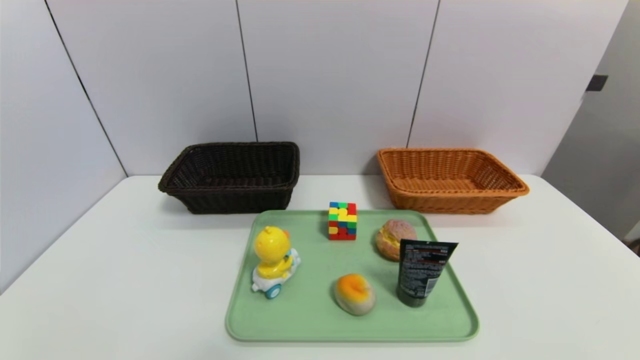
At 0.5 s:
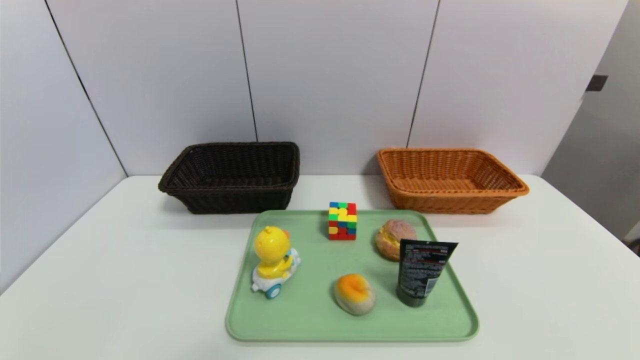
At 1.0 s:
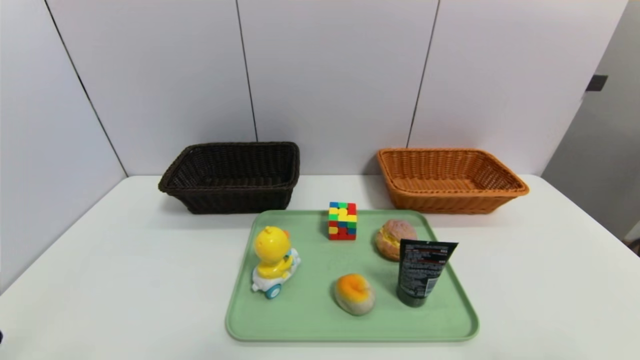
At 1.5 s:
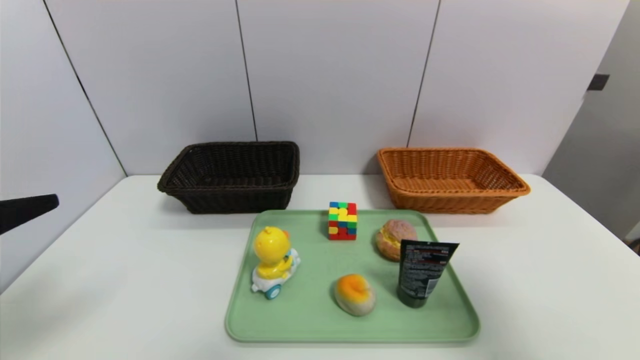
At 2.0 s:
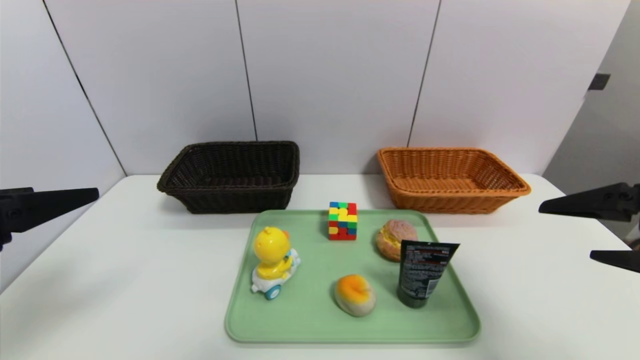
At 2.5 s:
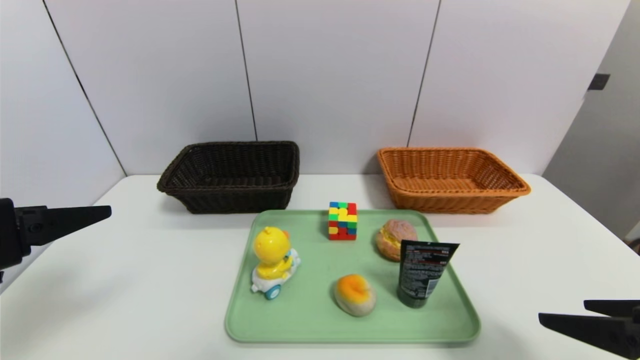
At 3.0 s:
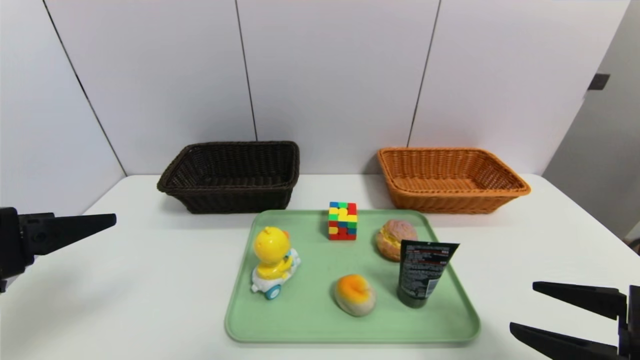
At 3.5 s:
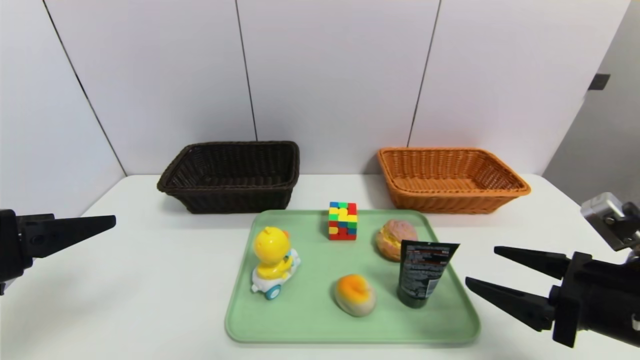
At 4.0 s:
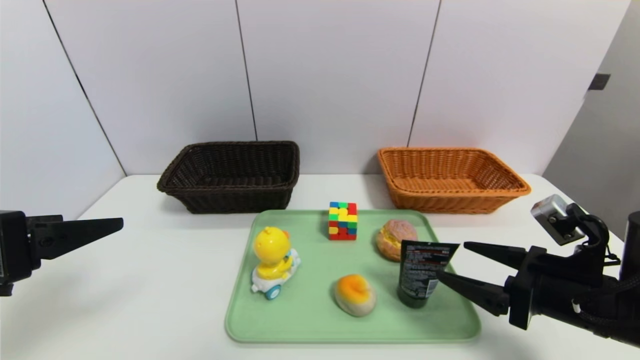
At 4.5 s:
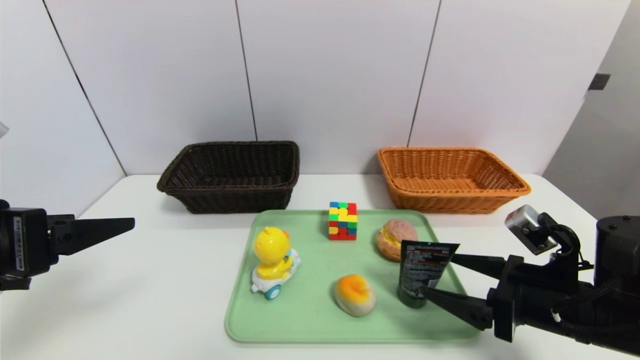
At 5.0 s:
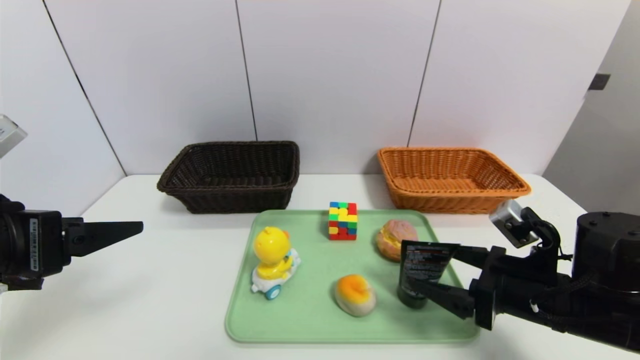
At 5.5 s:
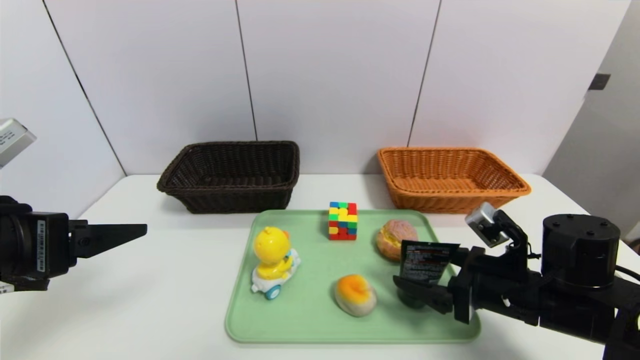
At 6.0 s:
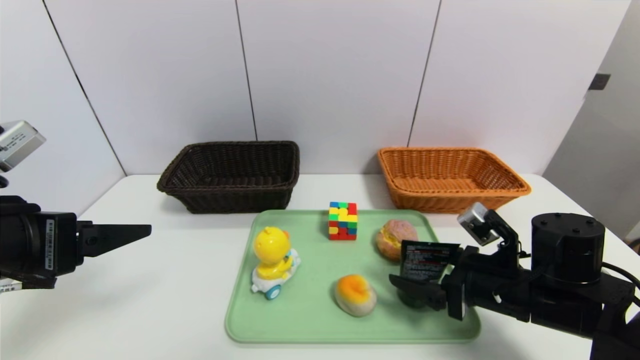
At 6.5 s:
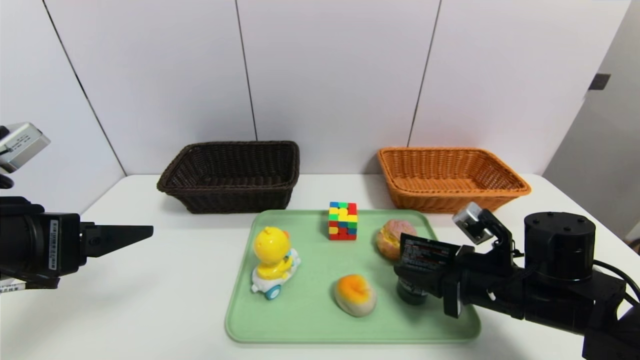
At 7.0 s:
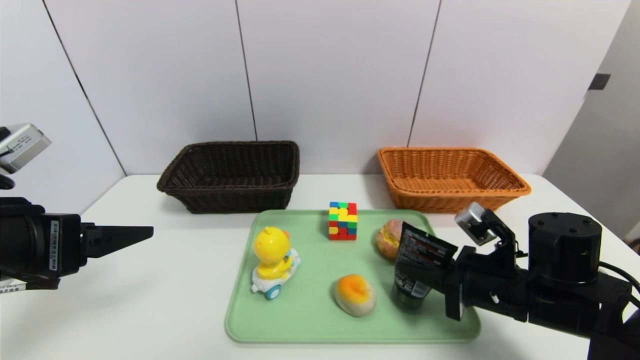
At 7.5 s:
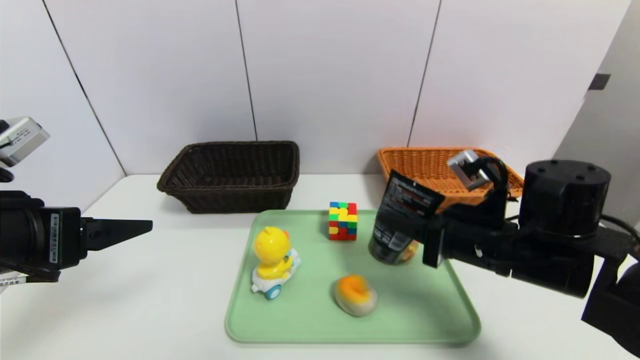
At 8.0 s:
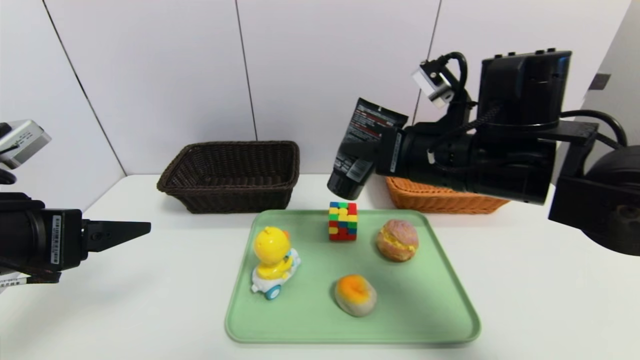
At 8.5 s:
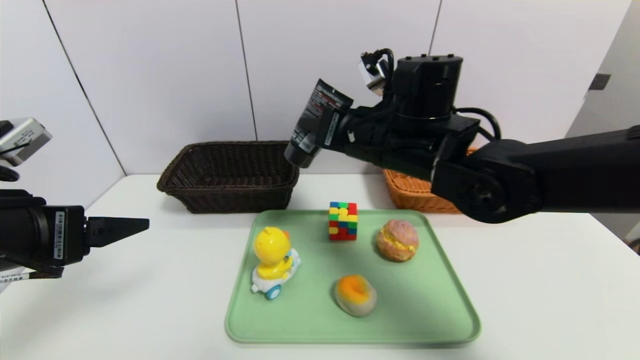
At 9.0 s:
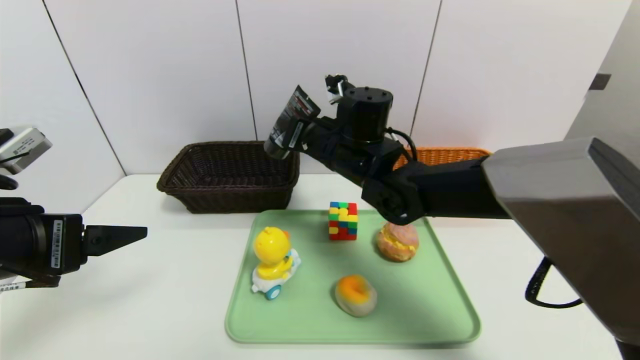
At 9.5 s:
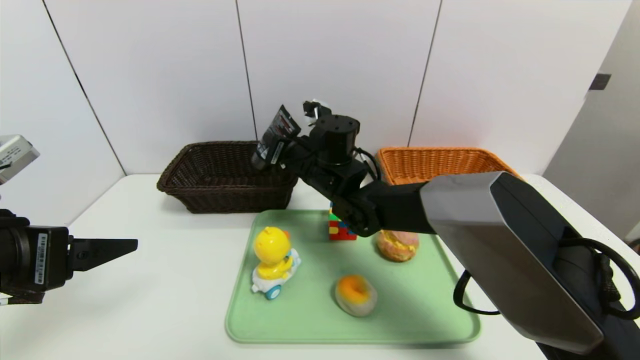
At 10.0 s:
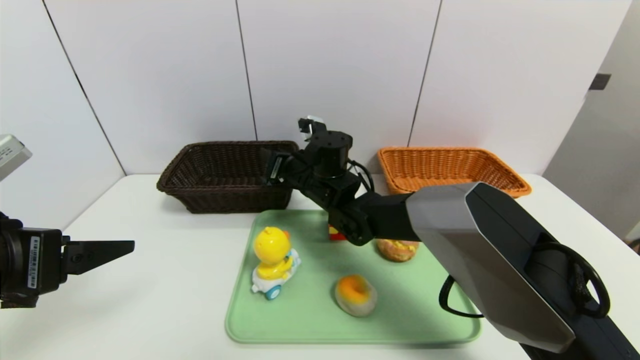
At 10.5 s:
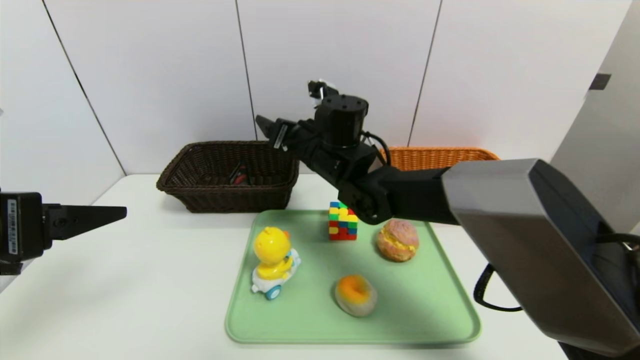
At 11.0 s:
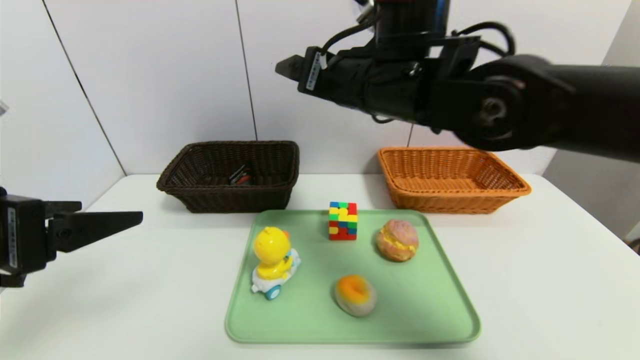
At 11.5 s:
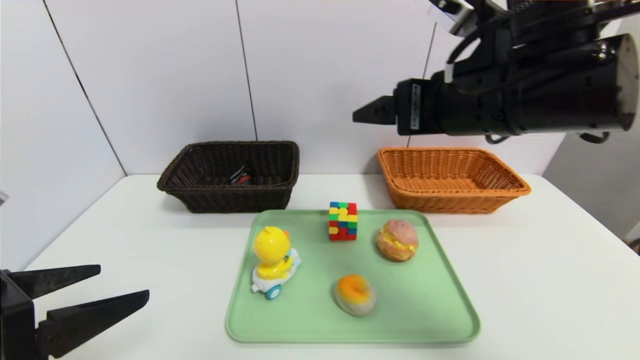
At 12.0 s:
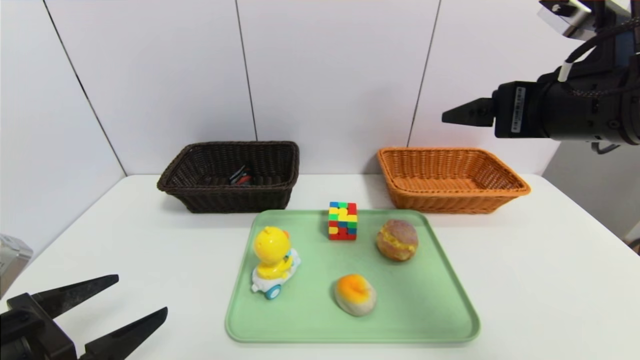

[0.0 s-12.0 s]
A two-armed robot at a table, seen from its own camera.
Task of the whole recording: place the food in the right basket with the right gripper, and place the non food items in the left basket with the left gripper.
Step, 0.0 to 10.5 s: Grasp the soft cleanser and put it in the left basket.
0.0 to 2.0 s: Both grippers travel together upward and forward, about 25 cm.
2.0 to 4.0 s: The right gripper travels downward by some 15 cm.
4.0 to 6.0 s: The right gripper ends up some 5 cm from where it was.
6.0 to 8.0 s: The right gripper shifts roughly 20 cm upward and to the left, and closes up.
8.0 to 10.0 s: The right gripper moves to the left, forward and downward, some 25 cm.
10.0 to 12.0 s: The right gripper heads to the right, backward and upward, covering some 35 cm, and opens; the left gripper heads downward, covering about 10 cm.

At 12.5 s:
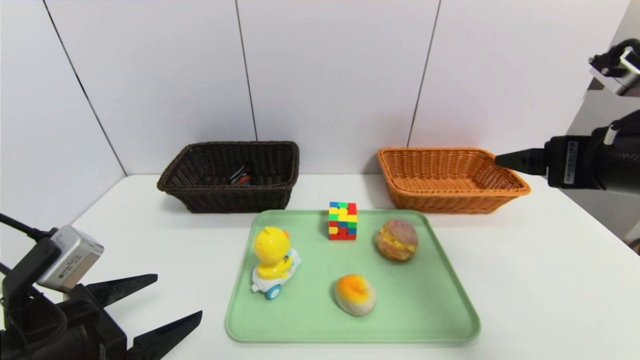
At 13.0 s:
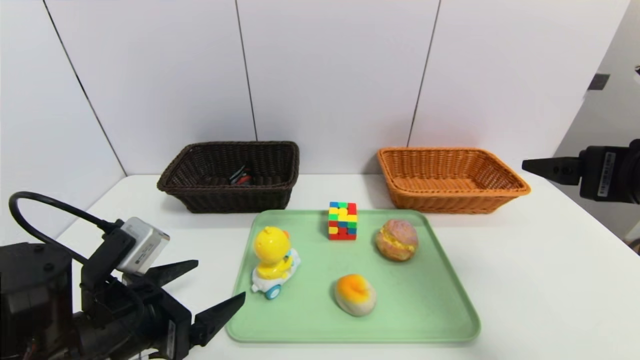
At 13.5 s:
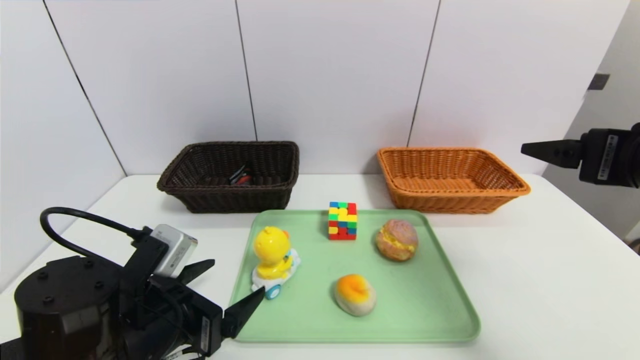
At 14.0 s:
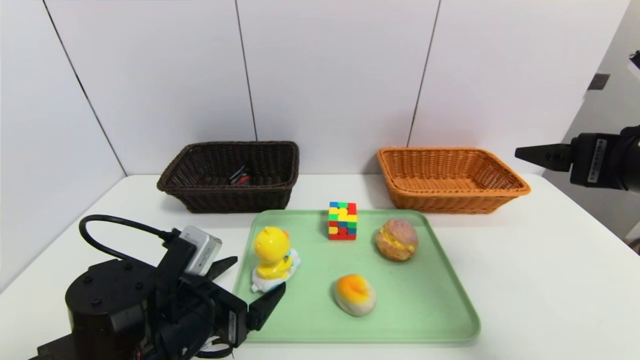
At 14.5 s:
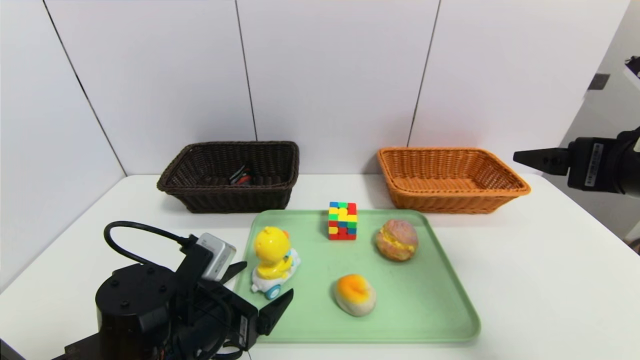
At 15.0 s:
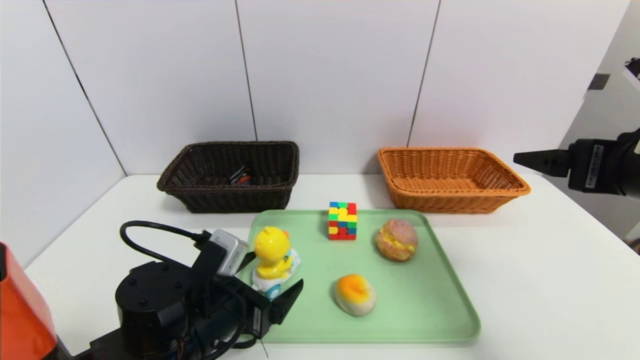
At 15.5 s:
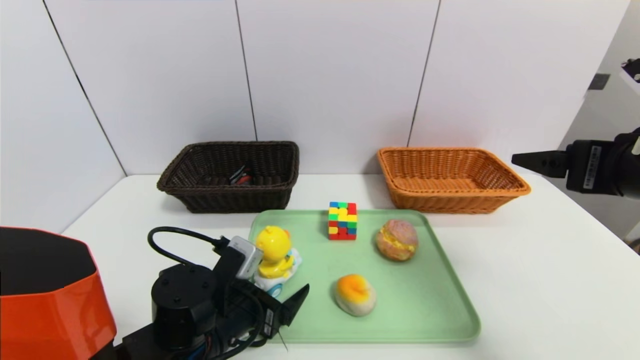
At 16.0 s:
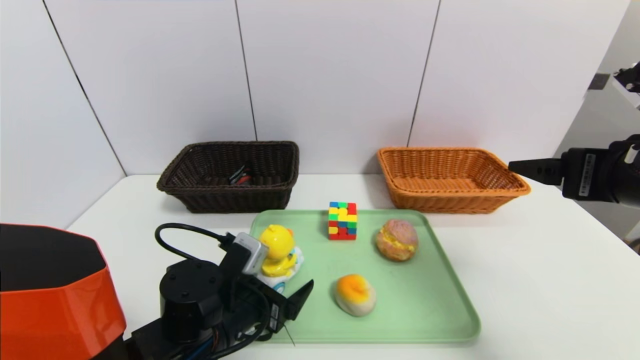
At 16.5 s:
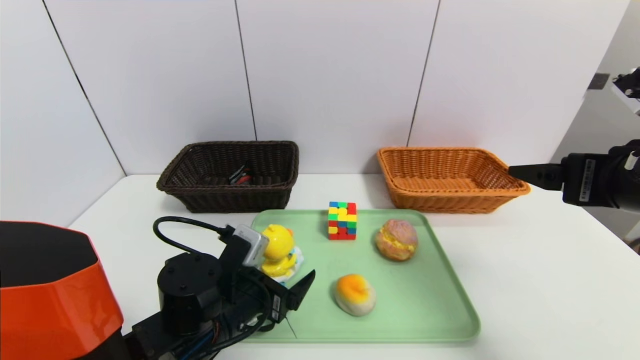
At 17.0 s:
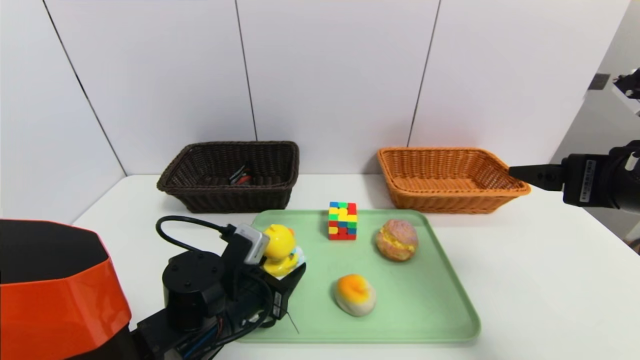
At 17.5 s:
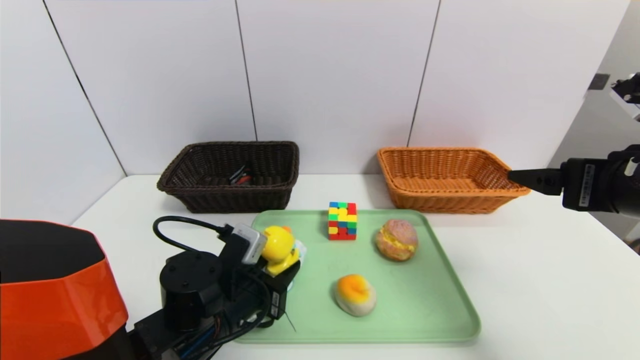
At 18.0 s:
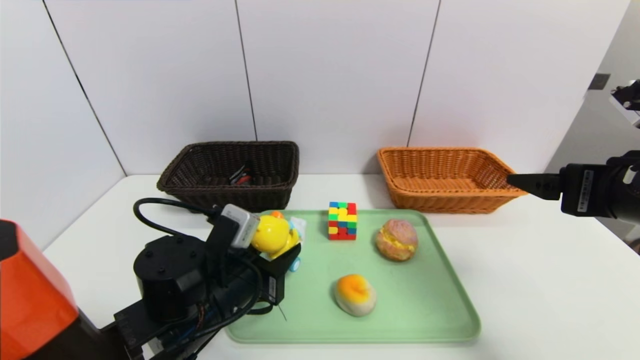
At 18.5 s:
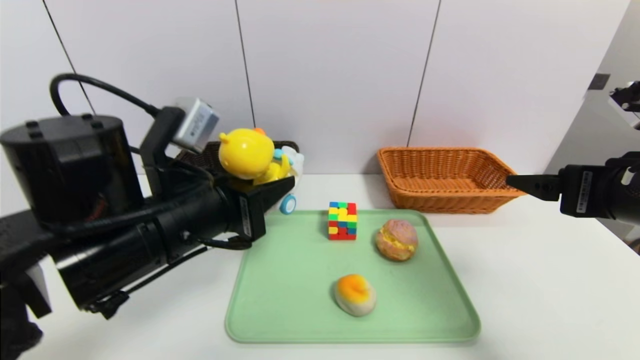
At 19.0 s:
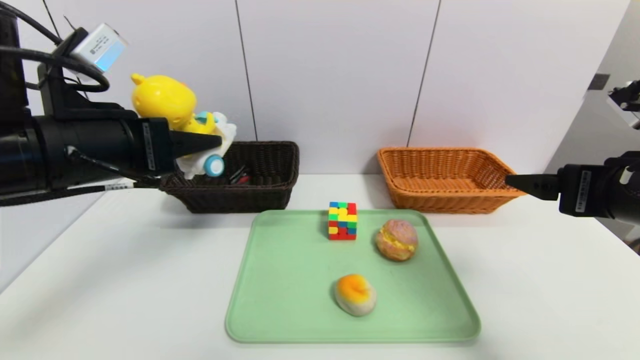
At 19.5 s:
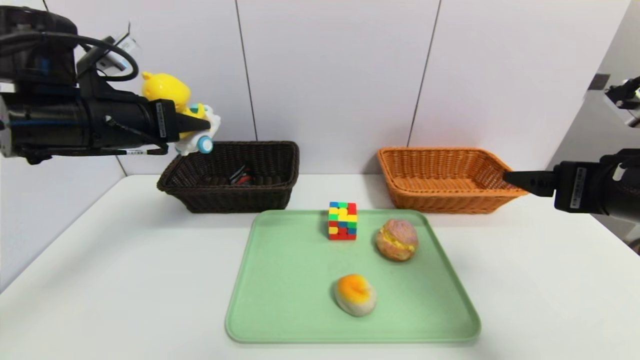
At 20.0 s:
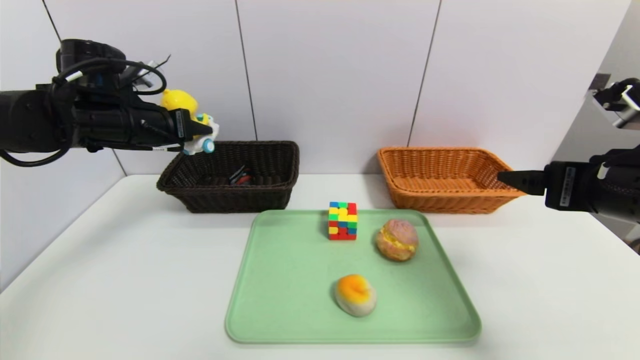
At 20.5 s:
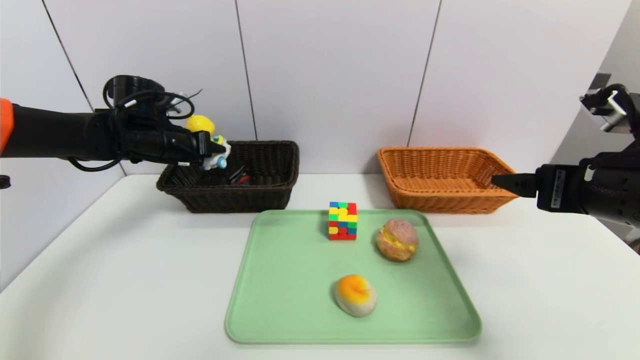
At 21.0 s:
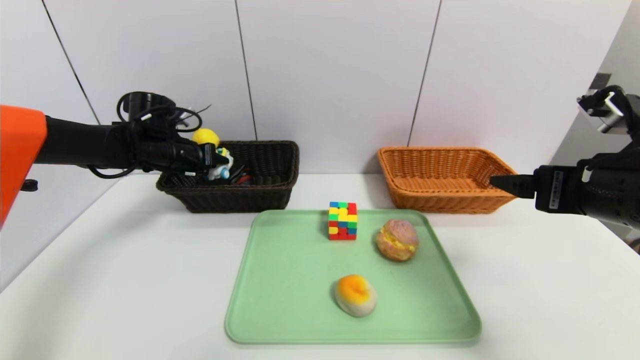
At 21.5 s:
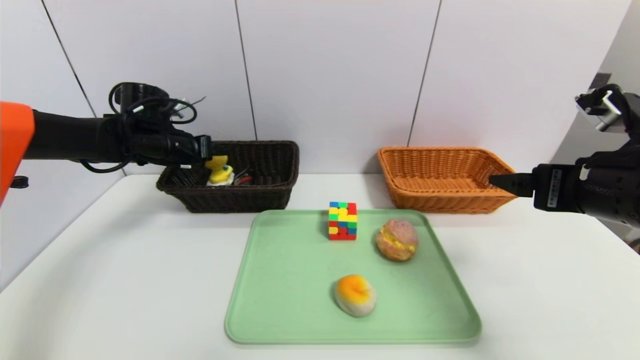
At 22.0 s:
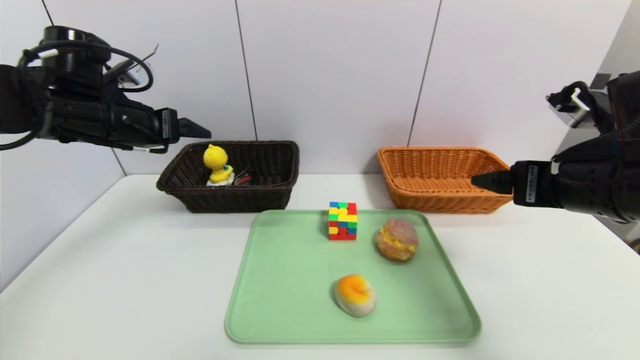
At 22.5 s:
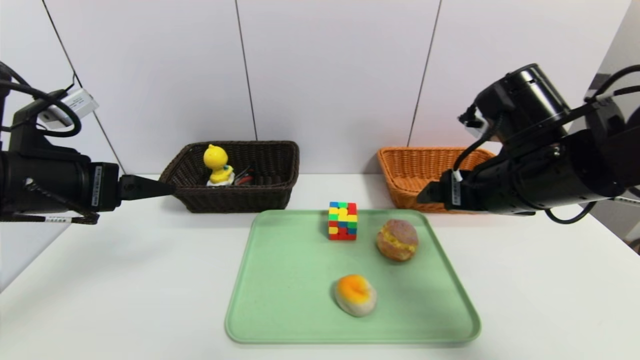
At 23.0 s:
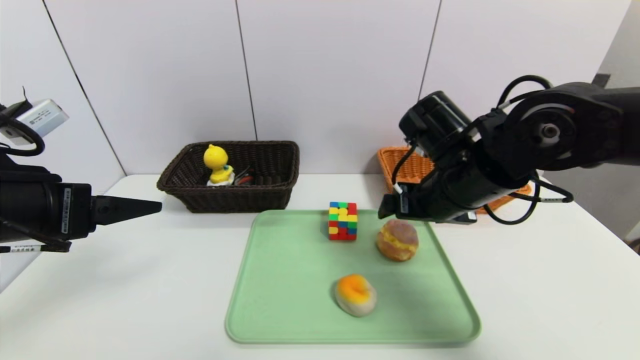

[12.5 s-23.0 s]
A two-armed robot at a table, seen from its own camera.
Task of the whole recording: place the food in the right basket with the right gripper, and place the non food items in the left basket with the left gripper.
Step, 12.5 to 22.0 s: Grasp the duck toys and put it in the left basket.
12.5 to 14.5 s: The left gripper moves to the right, downward and forward, roughly 15 cm.
14.5 to 16.5 s: The left gripper ends up roughly 5 cm from where it was.
16.5 to 19.0 s: The left gripper heads upward and to the left, covering some 25 cm, and closes.
19.0 to 21.0 s: The left gripper goes approximately 25 cm forward and downward.
21.0 to 23.0 s: The right gripper shifts about 15 cm to the left and forward; the left gripper is displaced backward by about 25 cm, and opens its fingers.
